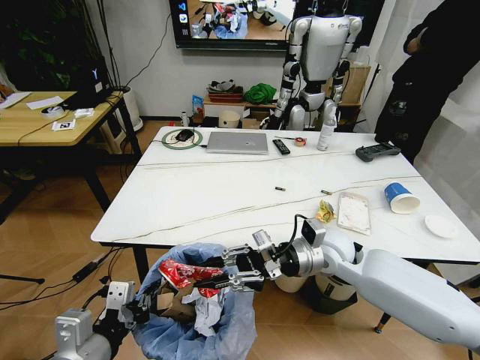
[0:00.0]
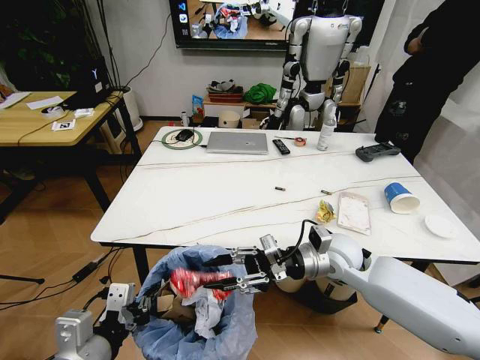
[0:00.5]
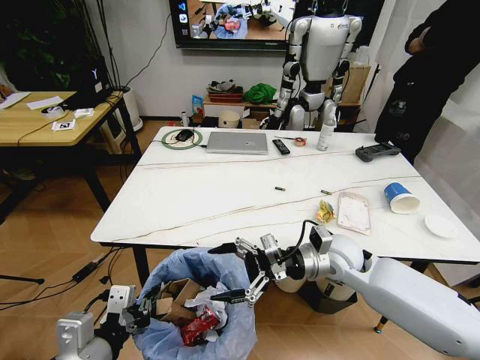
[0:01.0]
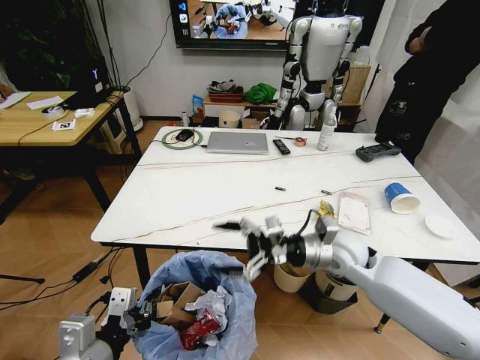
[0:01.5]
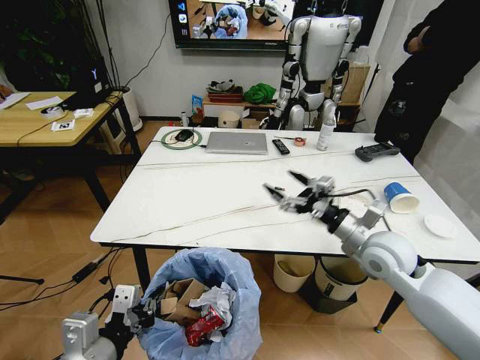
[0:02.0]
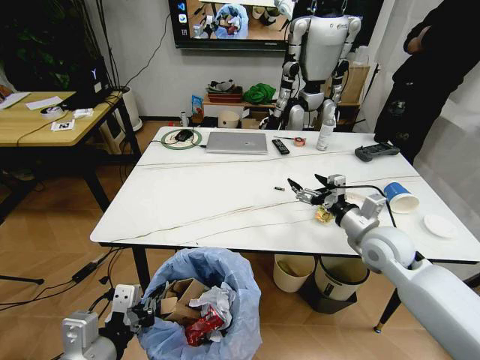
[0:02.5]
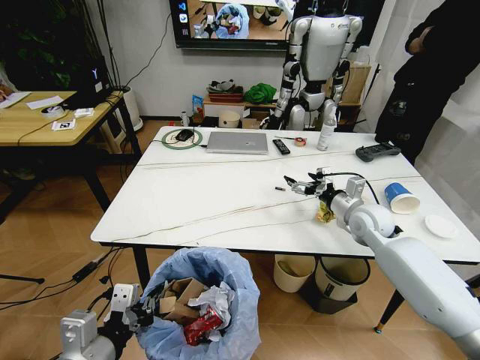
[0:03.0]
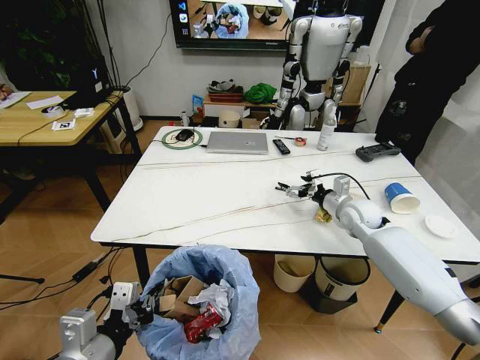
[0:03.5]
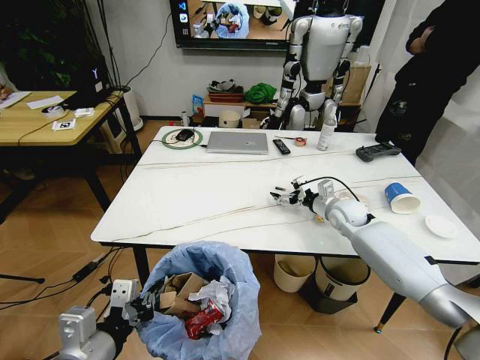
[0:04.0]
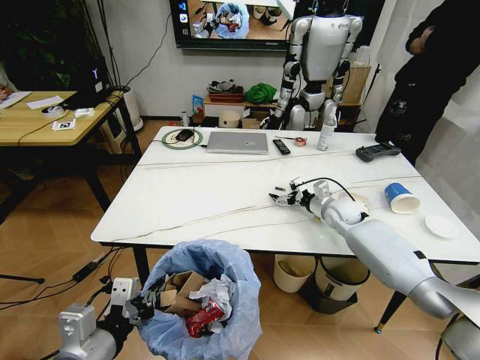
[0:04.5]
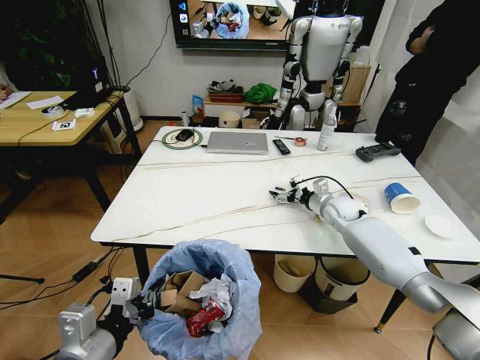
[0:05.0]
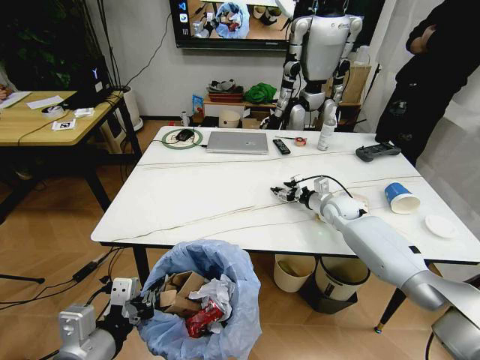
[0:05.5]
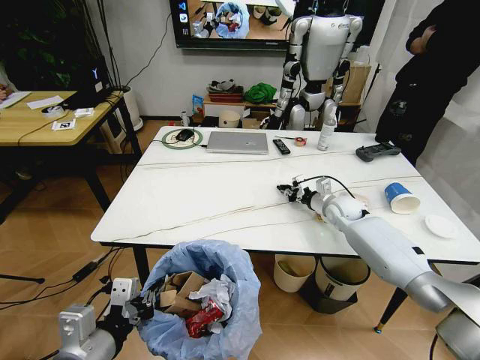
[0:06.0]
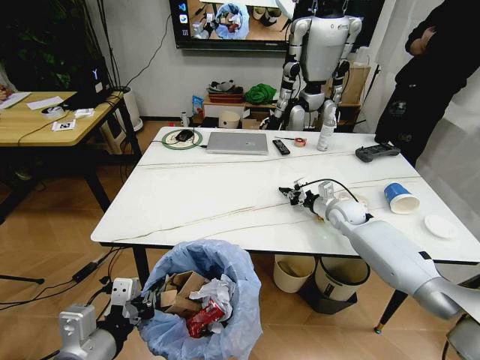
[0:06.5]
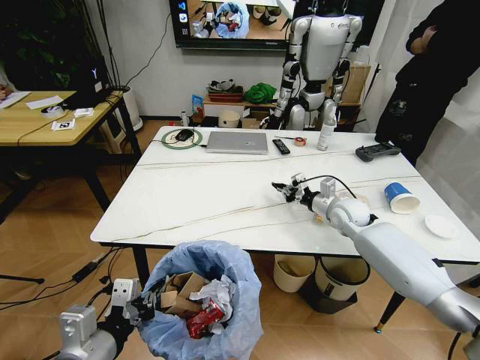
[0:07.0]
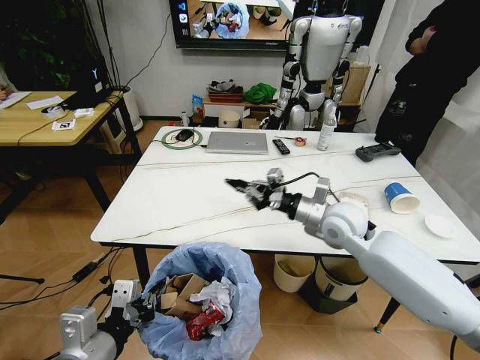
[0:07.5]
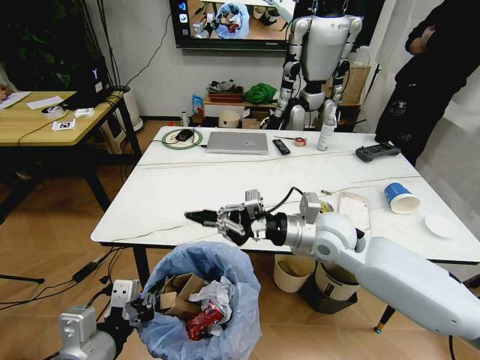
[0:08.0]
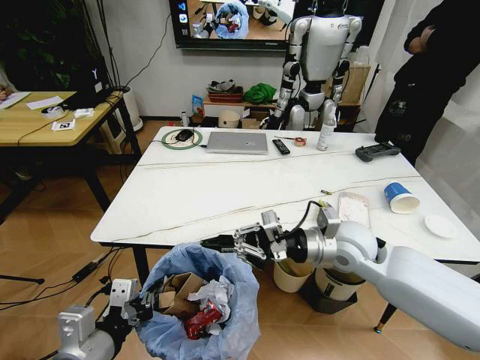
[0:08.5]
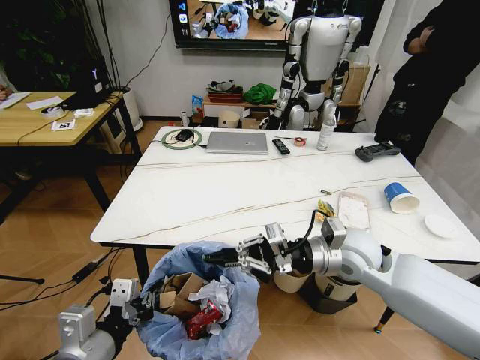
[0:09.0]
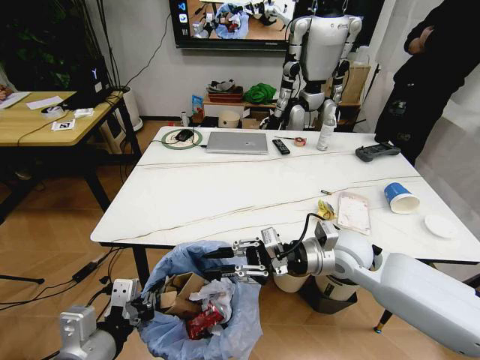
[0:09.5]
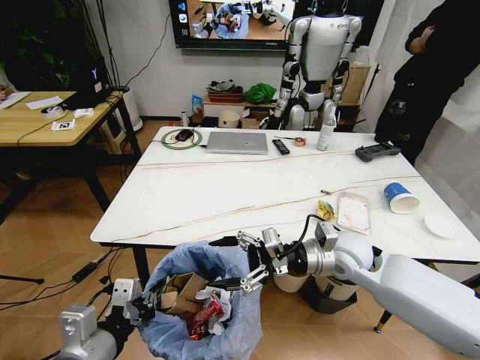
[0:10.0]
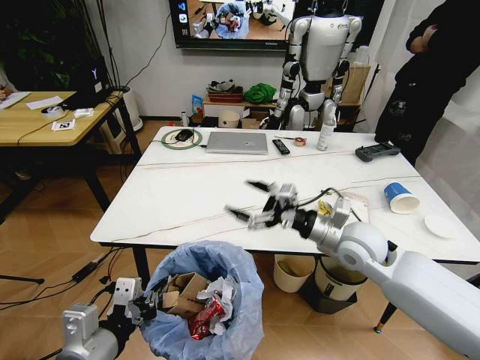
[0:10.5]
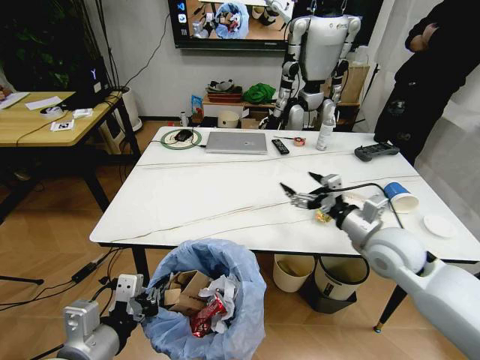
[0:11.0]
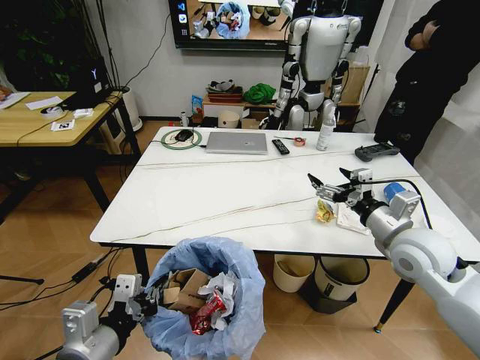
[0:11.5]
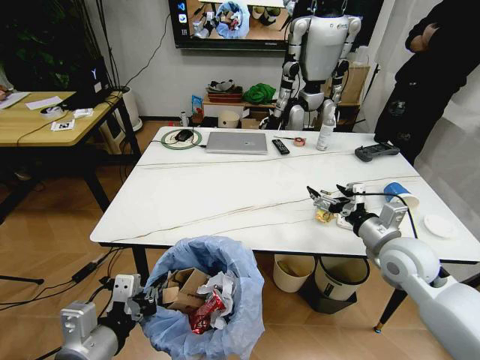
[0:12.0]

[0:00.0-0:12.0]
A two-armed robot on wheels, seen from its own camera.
Task of the whole recording: Pick up the trash bin and place the trash from the table into it.
0:00.0 to 0:02.0: The right gripper travels to the right by some 10 cm, and opens its fingers.
0:02.0 to 0:04.0: The right gripper travels forward and downward by approximately 20 cm.
0:04.0 to 0:06.0: The right gripper closes.
0:06.0 to 0:08.0: The right gripper travels backward, to the left and upward by roughly 25 cm.
0:08.0 to 0:10.0: The right gripper changes place by some 5 cm, and opens its fingers.
0:10.0 to 0:12.0: The right gripper heads to the right, covering some 10 cm.

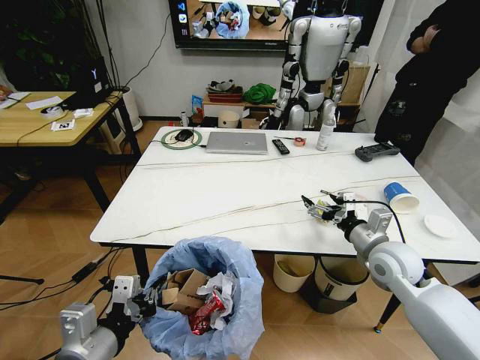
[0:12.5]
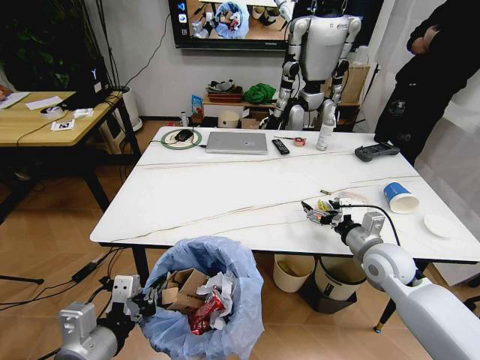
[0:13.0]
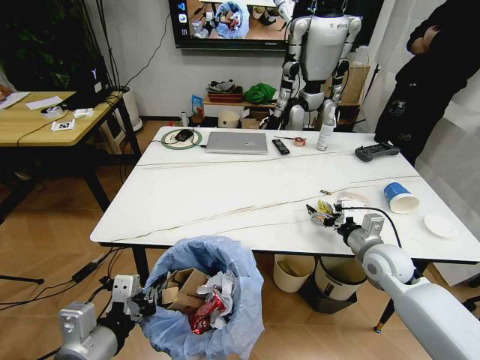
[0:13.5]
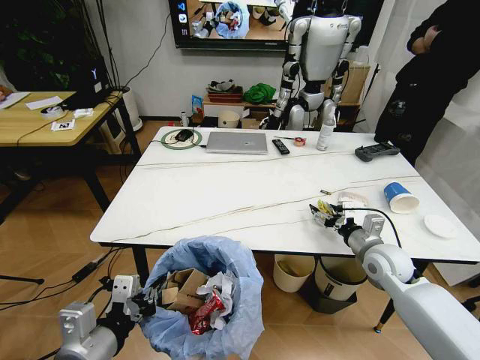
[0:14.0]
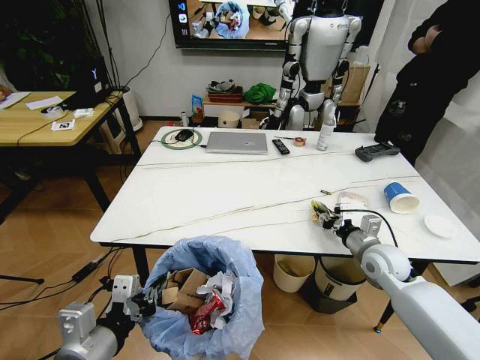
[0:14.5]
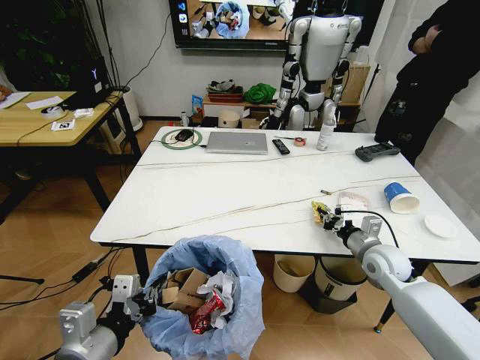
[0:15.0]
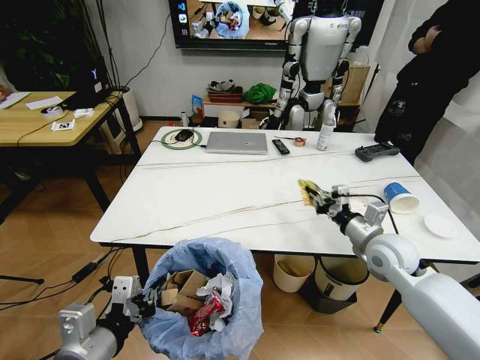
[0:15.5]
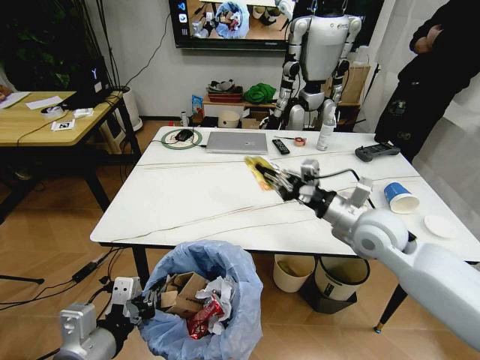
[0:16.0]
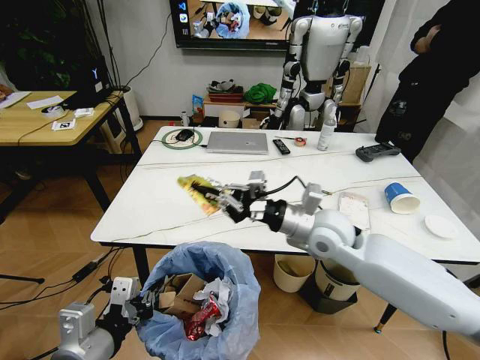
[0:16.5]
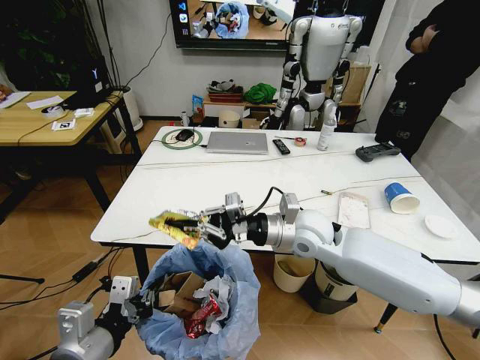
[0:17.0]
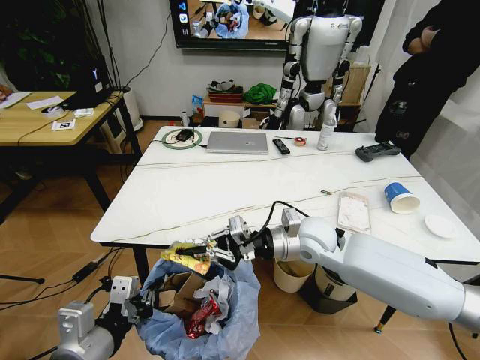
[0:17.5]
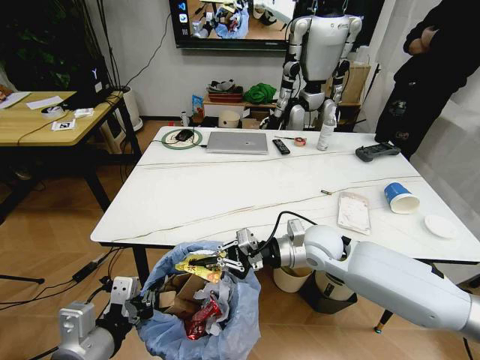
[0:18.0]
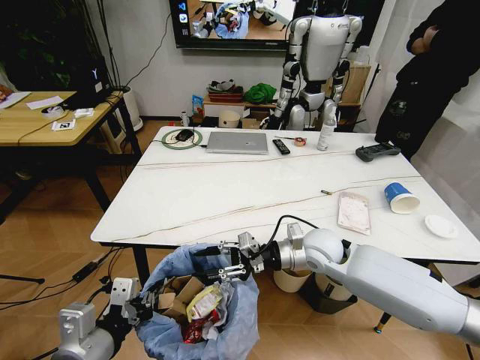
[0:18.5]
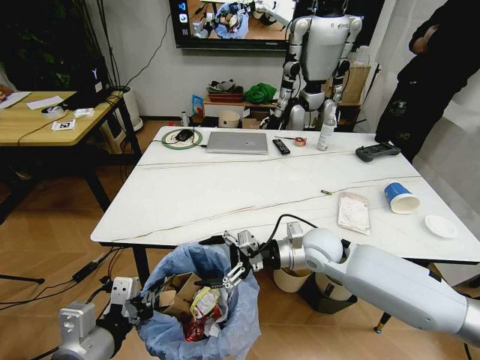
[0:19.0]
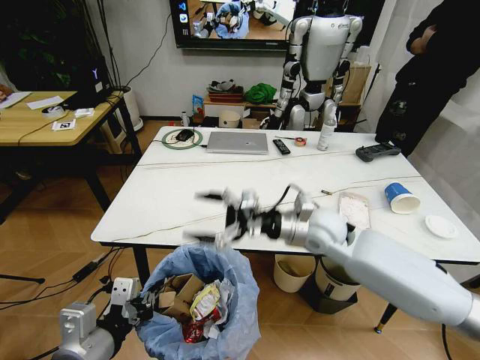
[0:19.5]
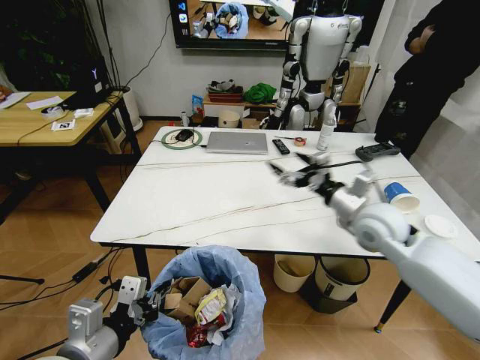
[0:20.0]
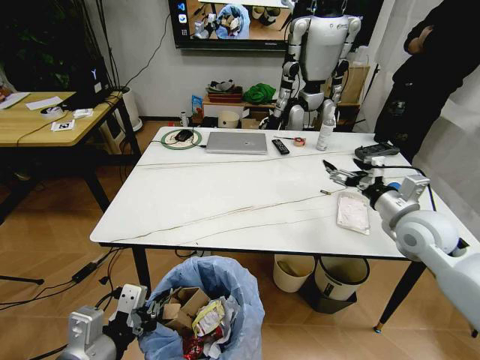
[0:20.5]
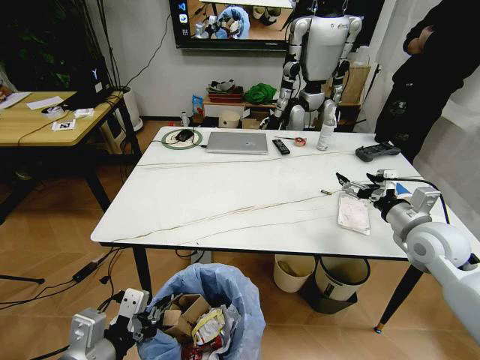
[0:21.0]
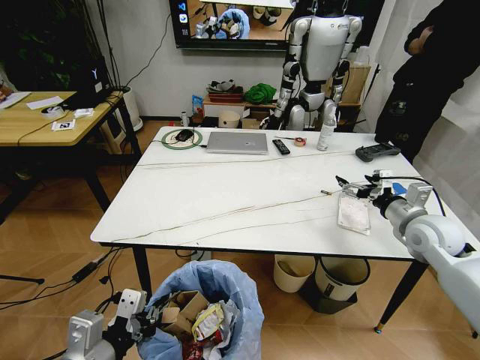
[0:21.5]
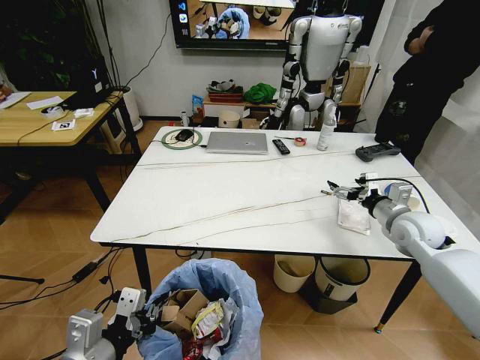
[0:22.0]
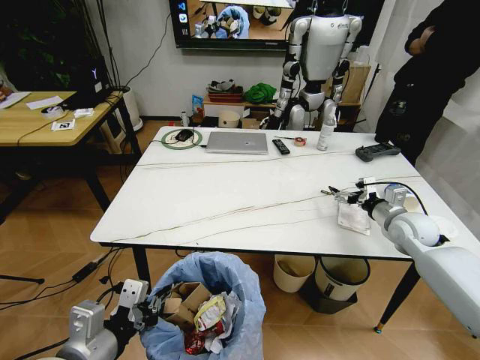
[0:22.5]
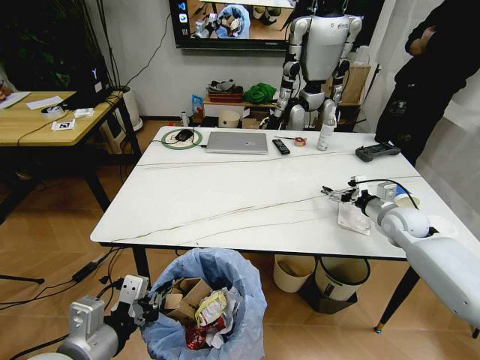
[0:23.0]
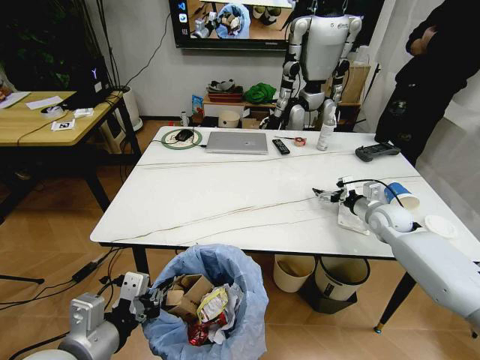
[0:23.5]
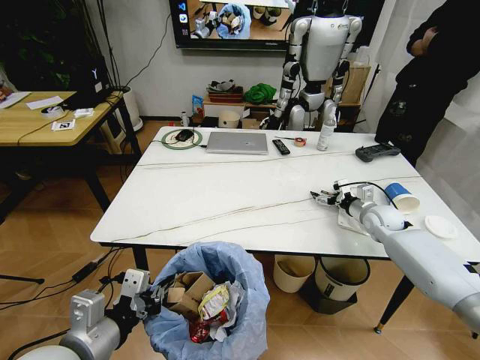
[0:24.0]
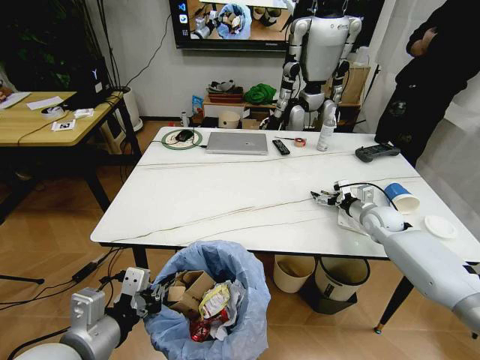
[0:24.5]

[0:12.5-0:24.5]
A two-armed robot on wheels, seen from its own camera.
Task of the whole recording: Pick up the trash bin and place the trash from the table into it.
0:12.5 to 0:14.5: The right gripper is displaced downward by about 5 cm, and closes its fingers.
0:14.5 to 0:16.5: The right gripper heads to the left and upward, covering roughly 20 cm.
0:16.5 to 0:18.5: The right gripper shifts about 10 cm downward, and opens up.
0:18.5 to 0:20.5: The right gripper travels to the right and upward by roughly 20 cm, and opens its fingers.
0:20.5 to 0:22.5: The right gripper shifts about 10 cm downward, forward and to the right.
0:22.5 to 0:24.5: The right gripper travels forward and downward by some 10 cm.

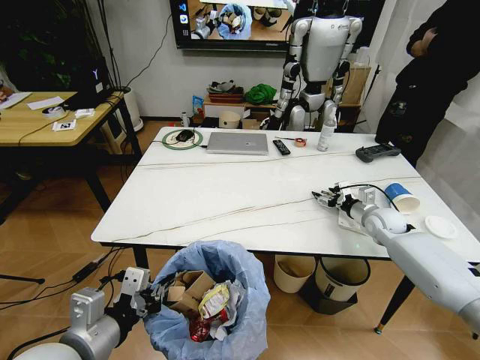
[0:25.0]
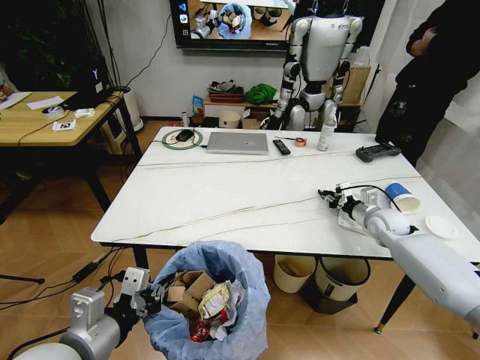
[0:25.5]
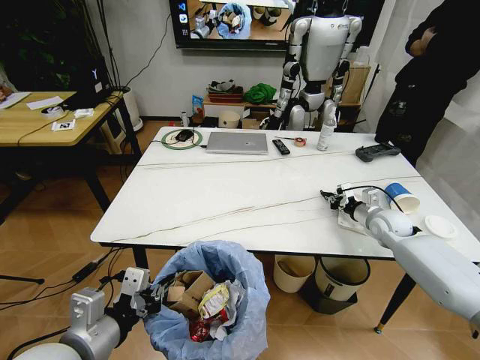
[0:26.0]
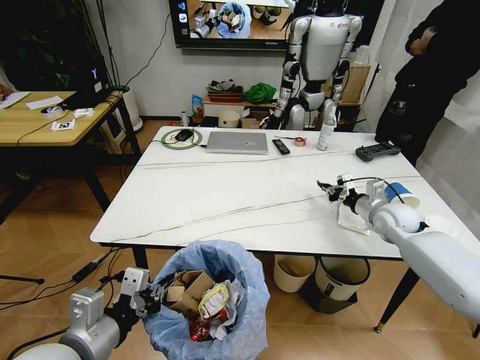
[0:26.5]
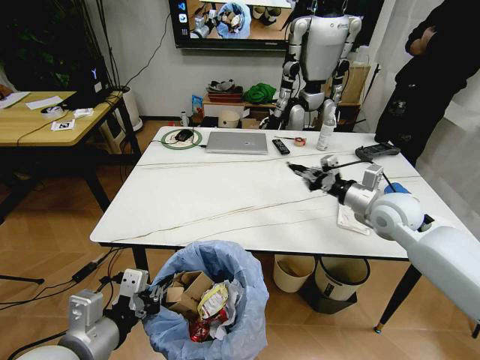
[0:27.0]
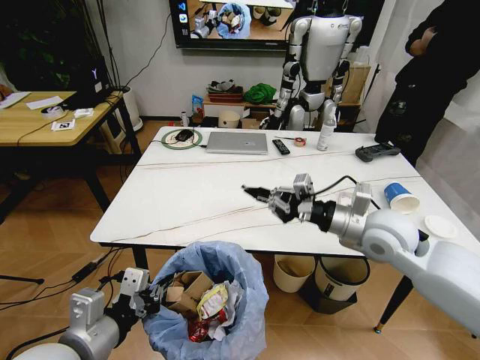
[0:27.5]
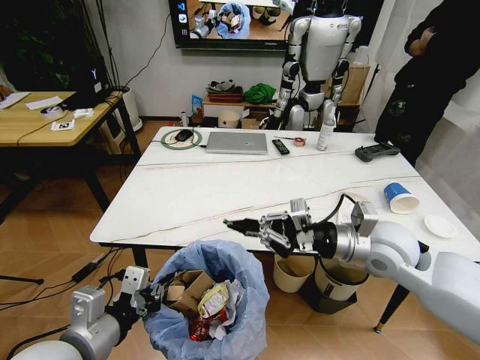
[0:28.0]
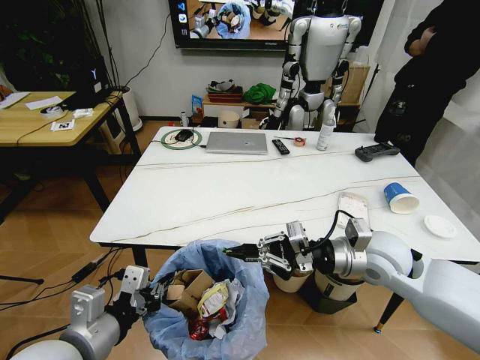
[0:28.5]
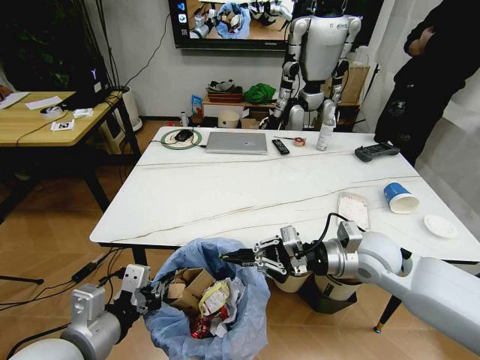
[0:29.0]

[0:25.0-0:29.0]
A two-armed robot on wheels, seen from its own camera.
Task of the whole recording: Pick up the trash bin and place the trash from the table into it.
0:25.0 to 0:27.0: The right gripper heads upward, to the left and backward, covering about 15 cm, and closes its fingers.
0:27.0 to 0:29.0: The right gripper is displaced backward and to the left by about 15 cm.
